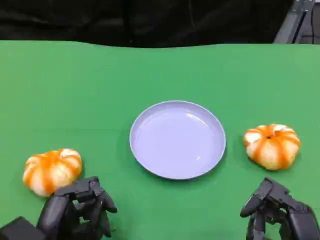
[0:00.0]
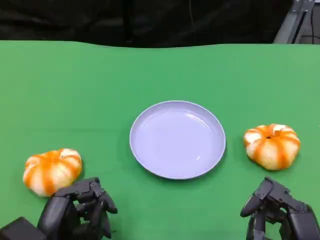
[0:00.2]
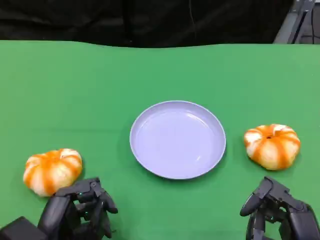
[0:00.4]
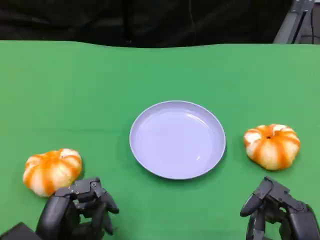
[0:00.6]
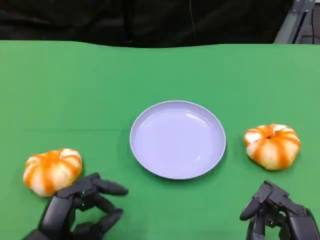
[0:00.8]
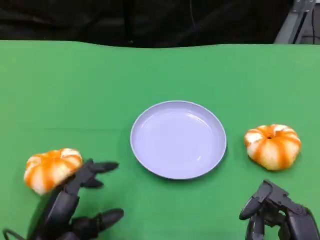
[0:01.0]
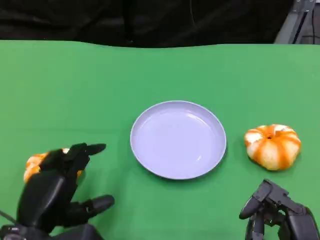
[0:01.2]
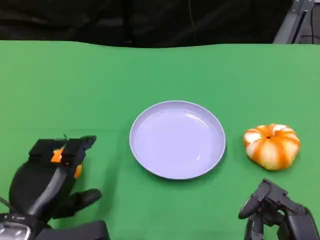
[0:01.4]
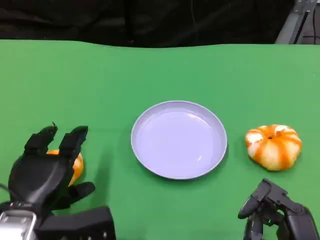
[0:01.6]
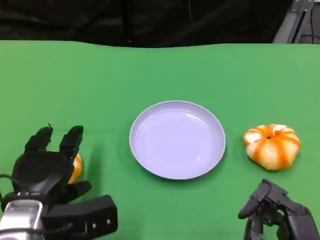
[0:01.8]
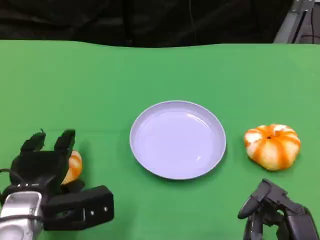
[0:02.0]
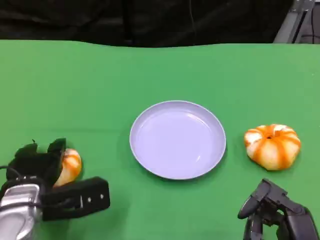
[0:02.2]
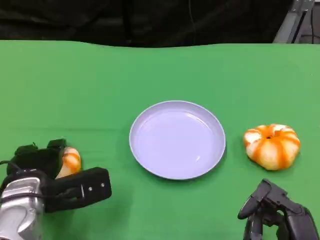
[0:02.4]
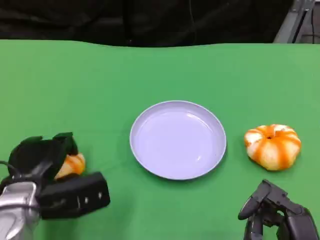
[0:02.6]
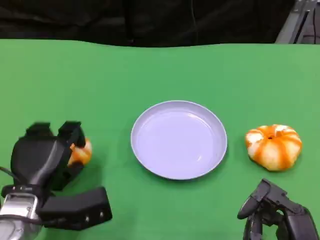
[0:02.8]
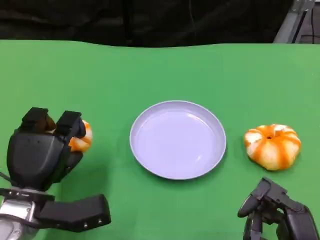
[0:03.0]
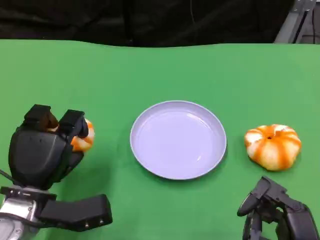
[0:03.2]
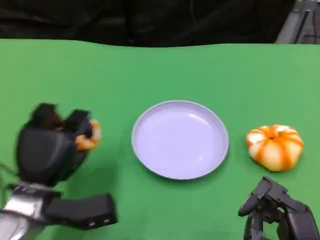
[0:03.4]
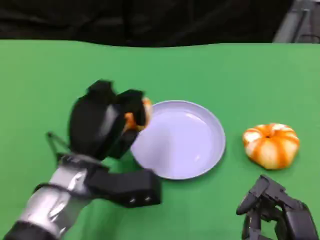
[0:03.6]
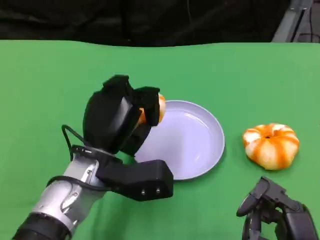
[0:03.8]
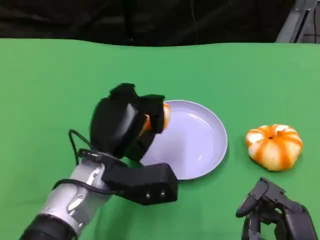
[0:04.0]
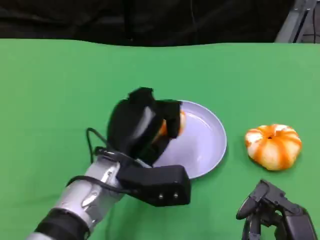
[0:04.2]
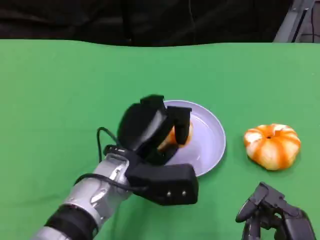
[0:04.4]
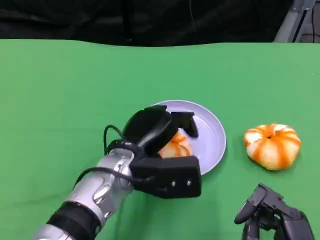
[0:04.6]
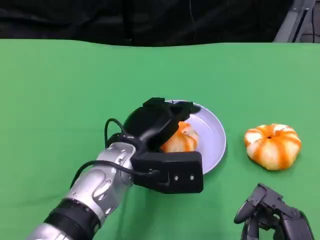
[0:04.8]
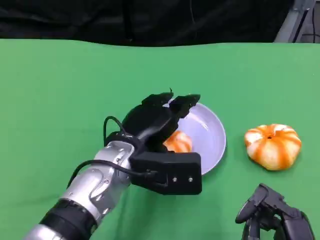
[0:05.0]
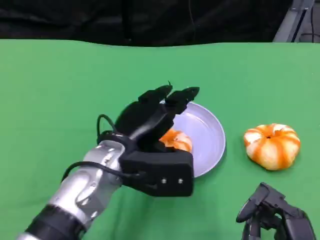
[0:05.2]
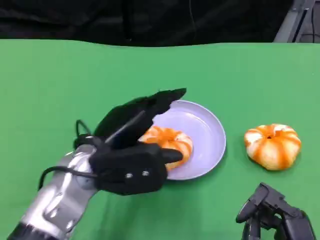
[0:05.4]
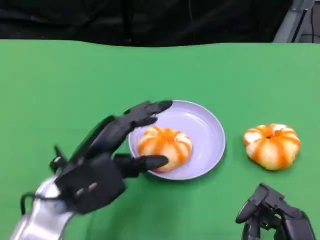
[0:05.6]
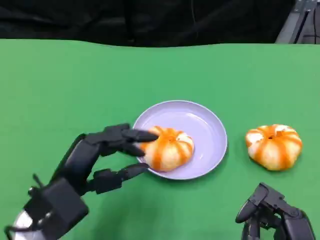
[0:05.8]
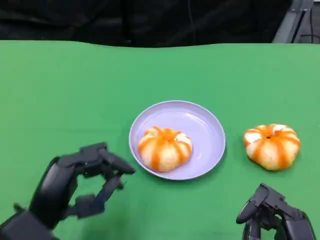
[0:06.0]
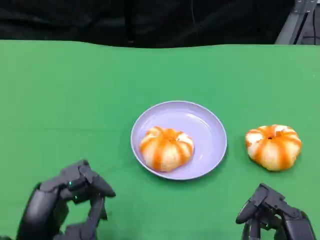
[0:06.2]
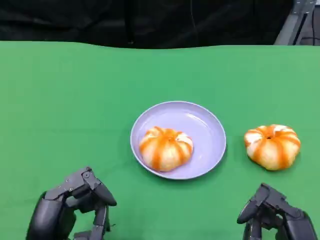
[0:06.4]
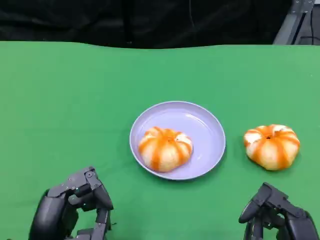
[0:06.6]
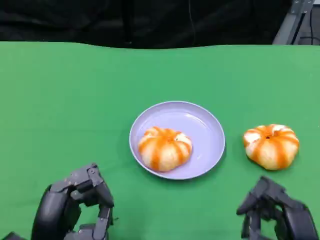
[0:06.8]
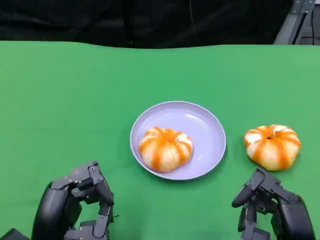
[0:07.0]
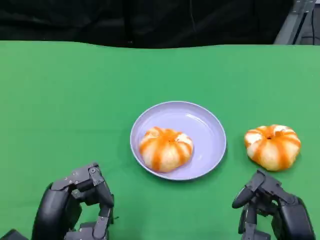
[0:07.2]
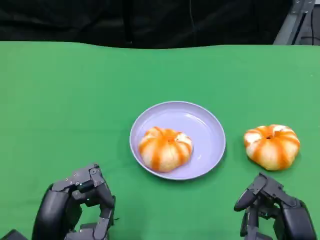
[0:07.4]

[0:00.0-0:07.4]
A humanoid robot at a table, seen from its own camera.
Task of the whole recording: Grasp the bread from the table and place it into the plate.
0:00.0 to 0:01.4: The left hand moves roughly 5 cm.
0:01.4 to 0:03.0: The left hand ends up about 5 cm from where it was.
0:03.0 to 0:04.4: The left hand is displaced to the right by roughly 15 cm.
0:04.4 to 0:06.0: The left hand shifts approximately 15 cm to the left and backward.
0:06.0 to 0:07.4: The hands make only small movements.

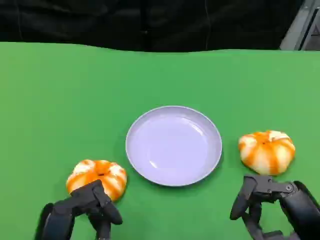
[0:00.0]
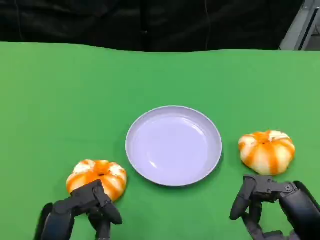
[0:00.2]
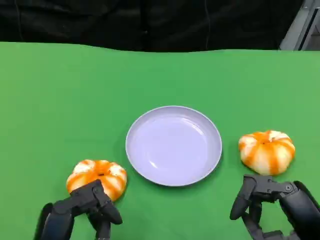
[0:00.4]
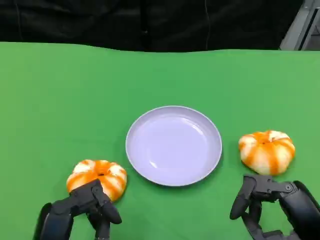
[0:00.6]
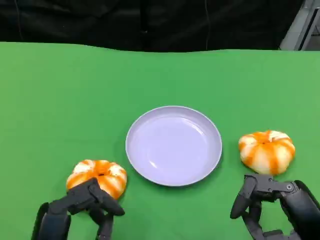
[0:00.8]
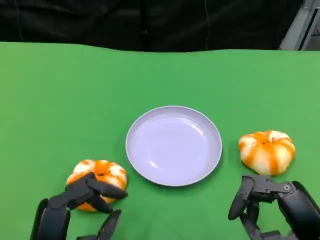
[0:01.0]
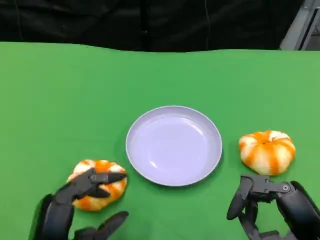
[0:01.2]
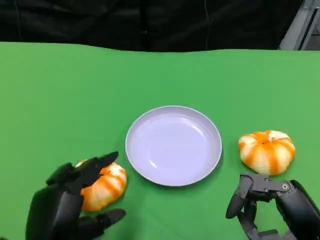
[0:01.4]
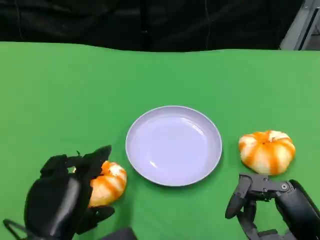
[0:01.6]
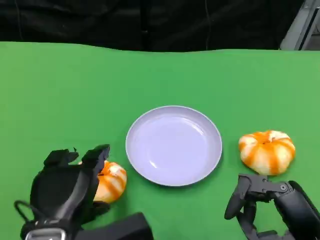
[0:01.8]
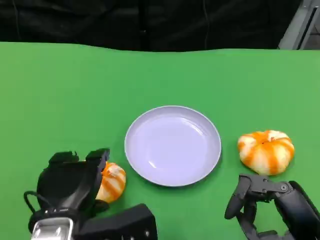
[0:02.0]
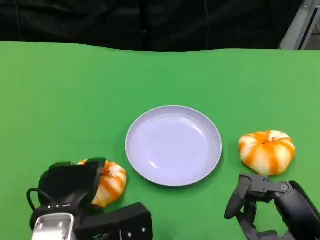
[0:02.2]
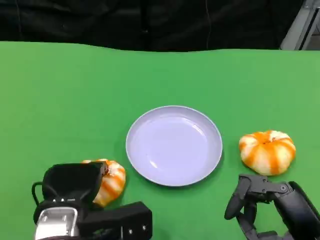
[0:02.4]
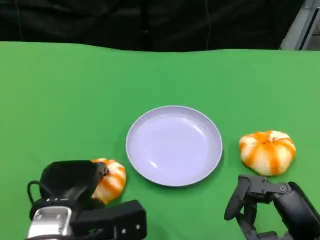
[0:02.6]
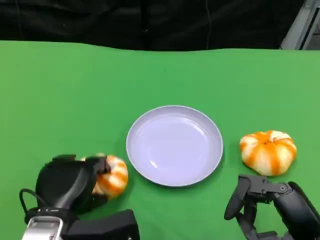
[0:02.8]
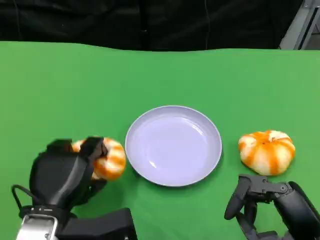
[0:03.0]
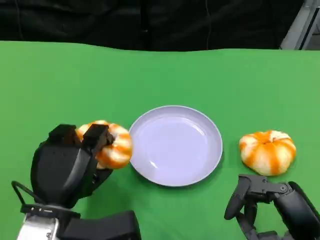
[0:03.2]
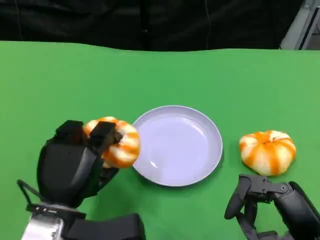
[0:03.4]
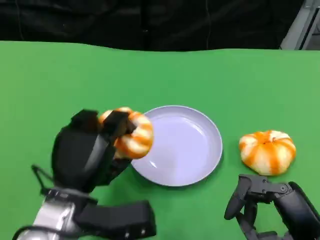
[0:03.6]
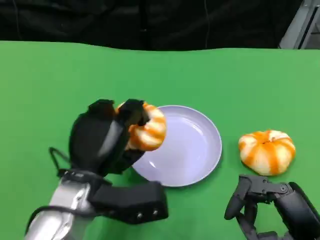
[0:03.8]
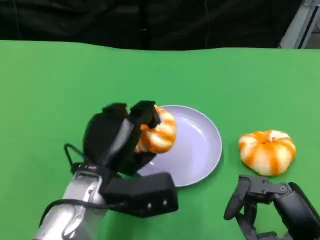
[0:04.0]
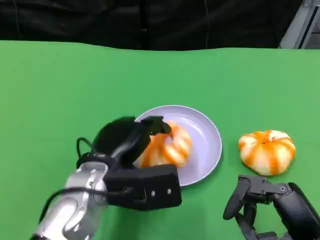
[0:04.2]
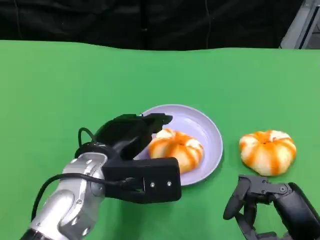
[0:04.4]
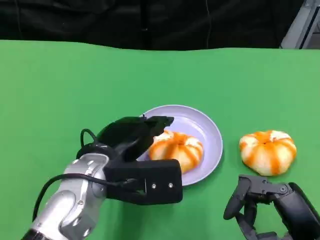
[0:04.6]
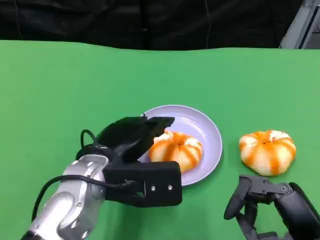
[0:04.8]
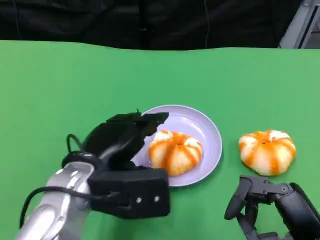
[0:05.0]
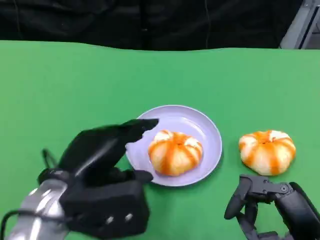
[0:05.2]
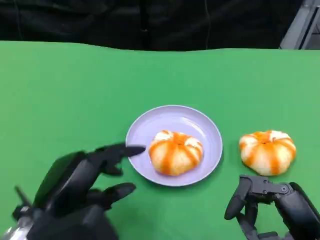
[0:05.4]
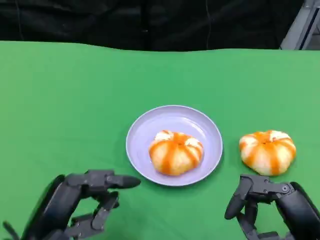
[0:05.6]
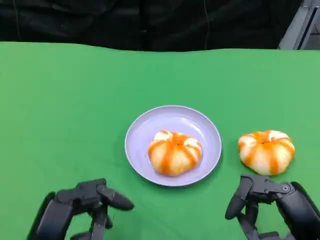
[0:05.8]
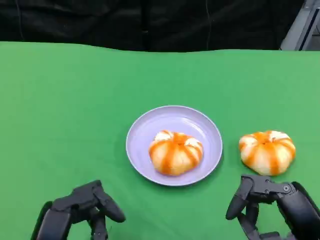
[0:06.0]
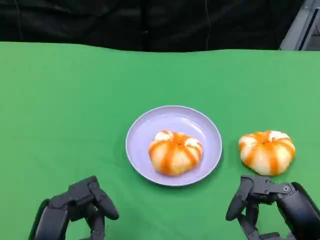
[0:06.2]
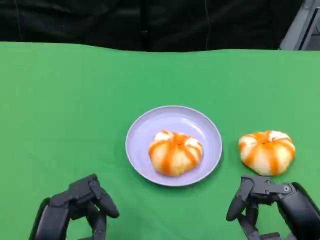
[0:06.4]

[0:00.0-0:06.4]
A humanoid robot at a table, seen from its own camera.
Task of the whole recording: Grasp the bread from the table and place it into the plate.
0:01.6 to 0:03.2: The left hand ends up about 5 cm from where it was.
0:03.2 to 0:04.8: The left hand goes about 5 cm to the right and upward.
0:04.8 to 0:06.4: The left hand travels backward and to the left by approximately 15 cm.
